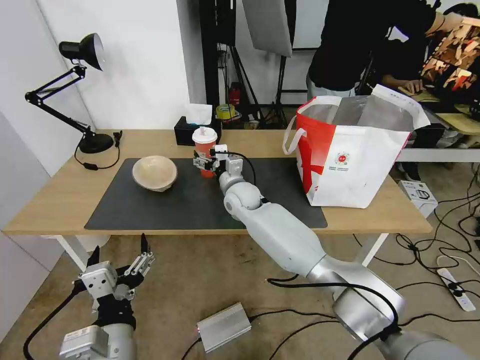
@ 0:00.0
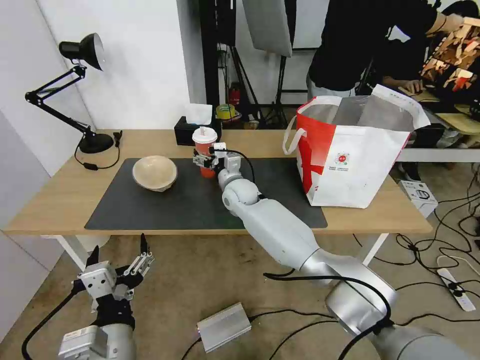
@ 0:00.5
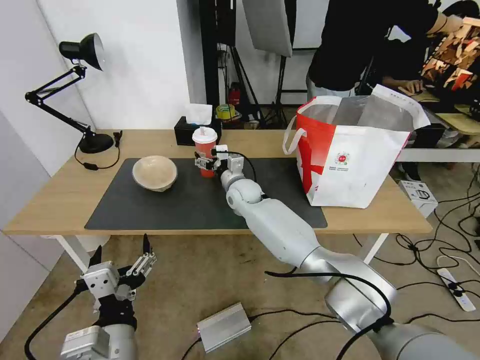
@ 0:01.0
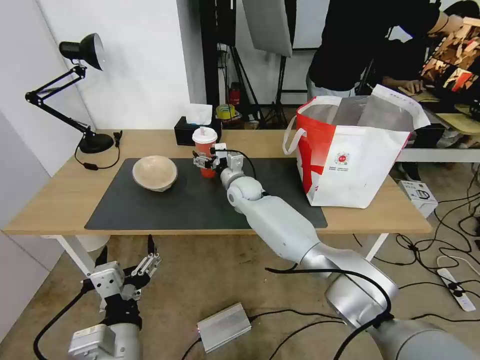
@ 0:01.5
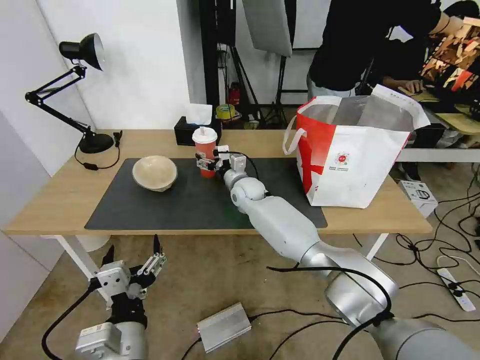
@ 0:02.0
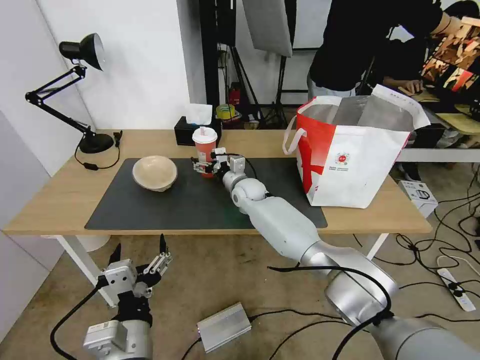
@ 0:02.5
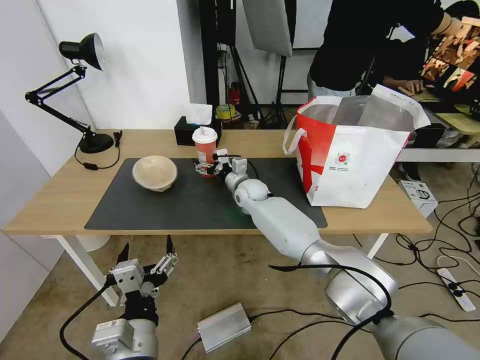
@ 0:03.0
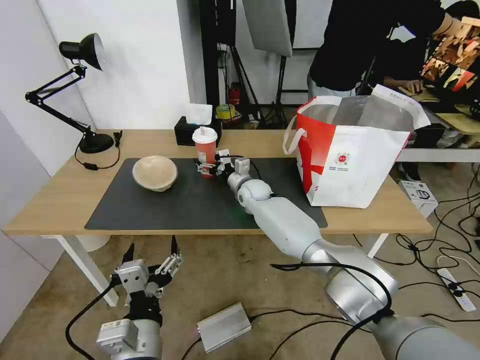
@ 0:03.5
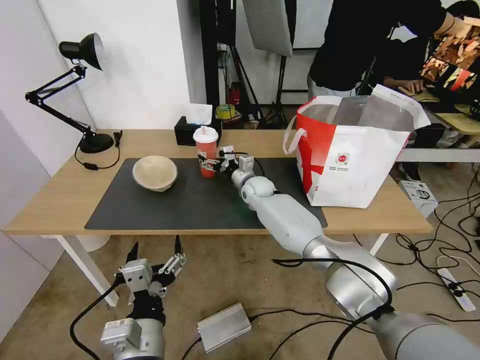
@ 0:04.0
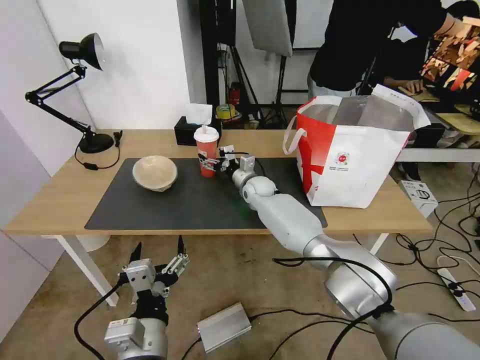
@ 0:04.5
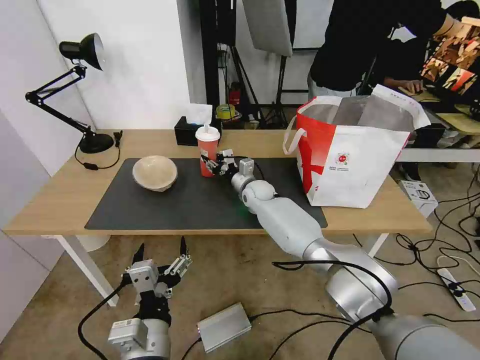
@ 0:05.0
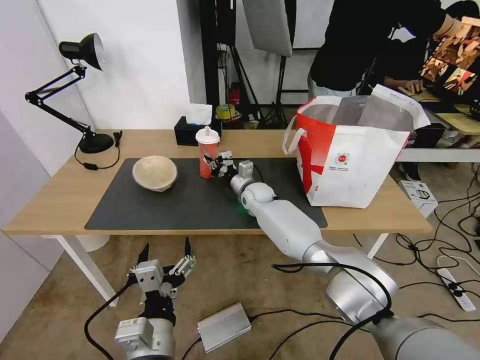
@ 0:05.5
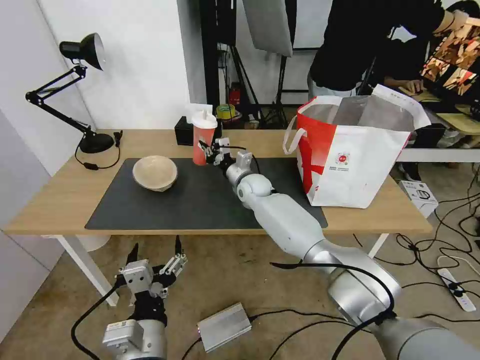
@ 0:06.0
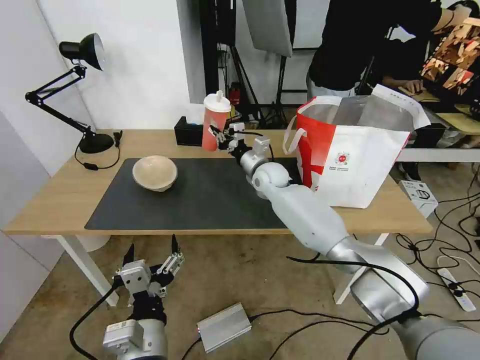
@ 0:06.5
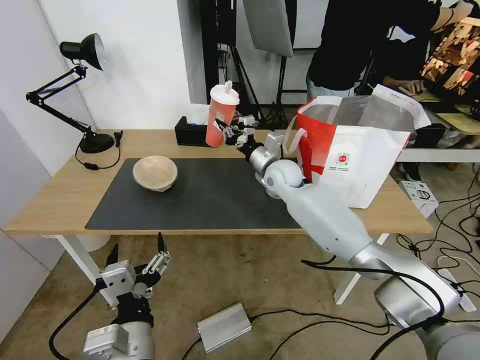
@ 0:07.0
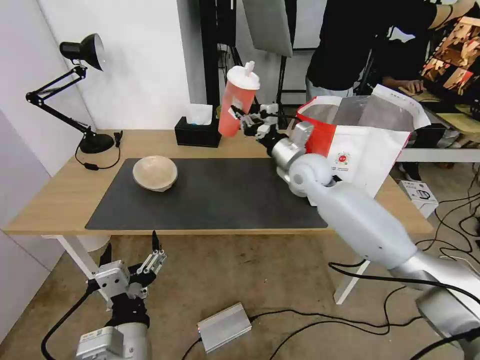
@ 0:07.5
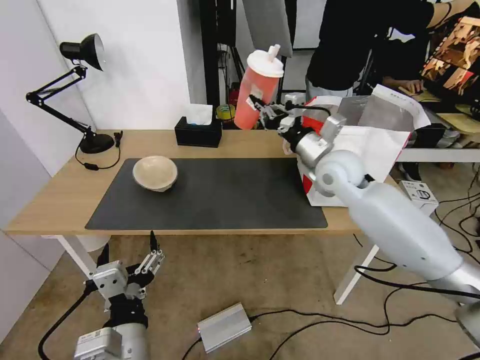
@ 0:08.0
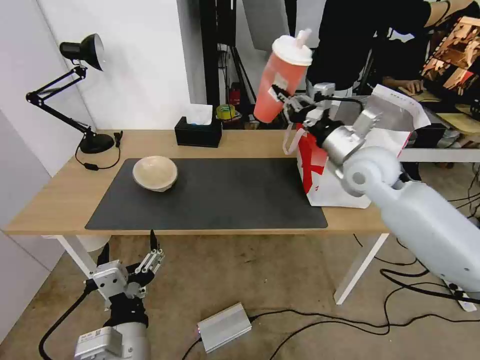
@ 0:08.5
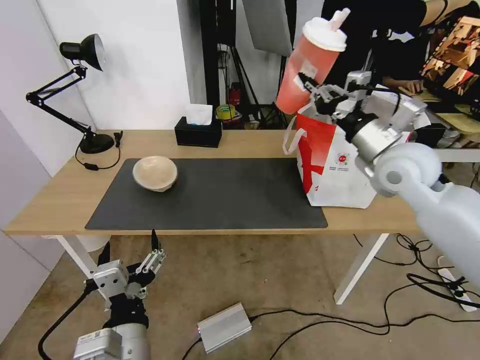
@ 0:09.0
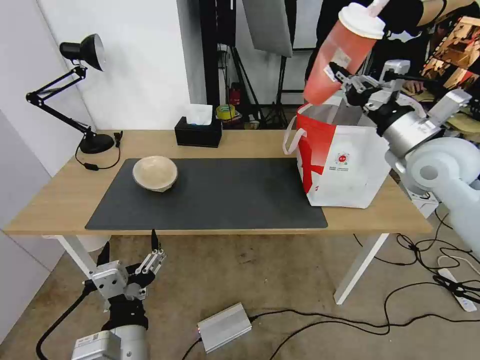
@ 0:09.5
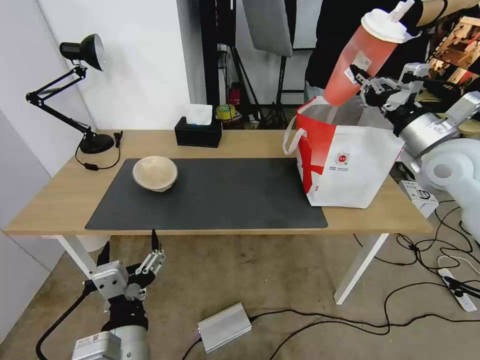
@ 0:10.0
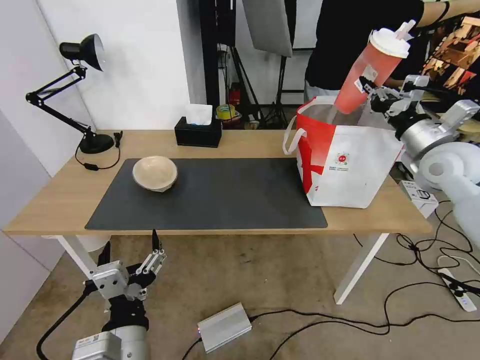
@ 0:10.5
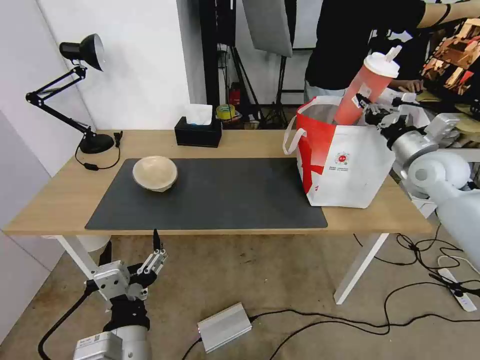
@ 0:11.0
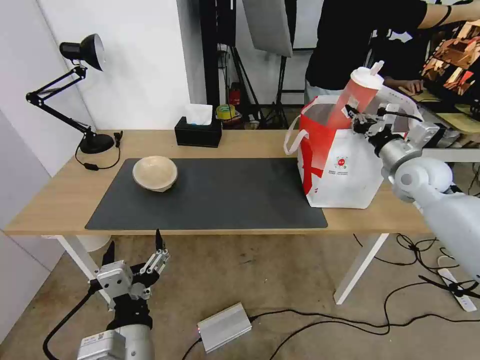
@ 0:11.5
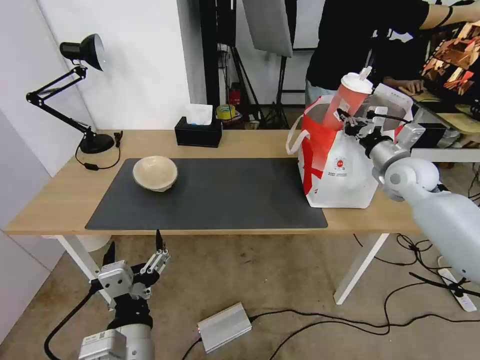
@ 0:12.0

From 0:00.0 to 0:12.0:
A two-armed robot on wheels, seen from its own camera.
Task of the whole recording: Pick up the trash from the table and place it into the takeout bag.
From 0:00.0 to 0:02.0: The right gripper shifts by approximately 5 cm.
From 0:02.0 to 0:04.0: There are only small adjustments of the grippers.
From 0:04.0 to 0:06.0: The right gripper closes its fingers.
From 0:06.0 to 0:08.0: The right gripper shifts approximately 25 cm to the right, upward and backward.
From 0:08.0 to 0:10.0: The right gripper shifts approximately 15 cm to the right.
From 0:10.0 to 0:12.0: The right gripper is displaced downward and forward by approximately 10 cm.

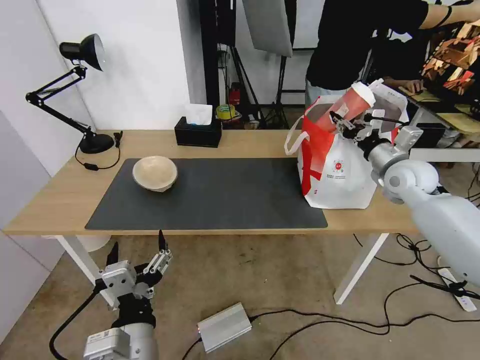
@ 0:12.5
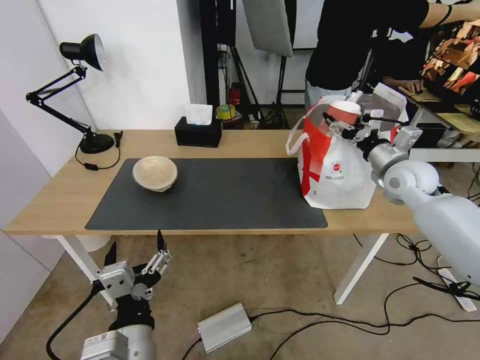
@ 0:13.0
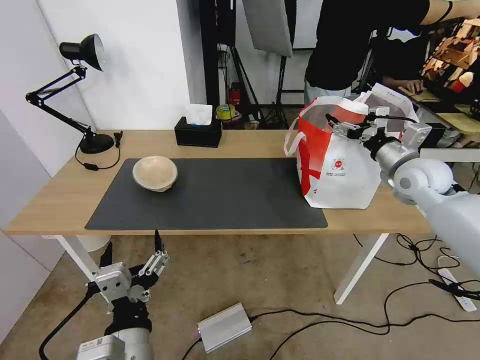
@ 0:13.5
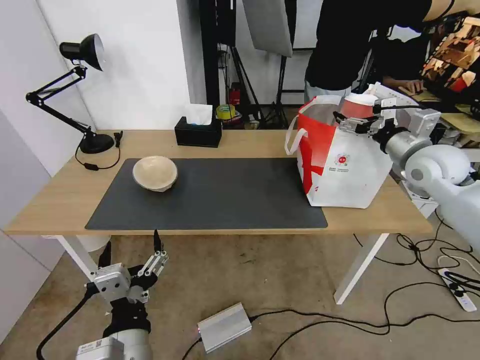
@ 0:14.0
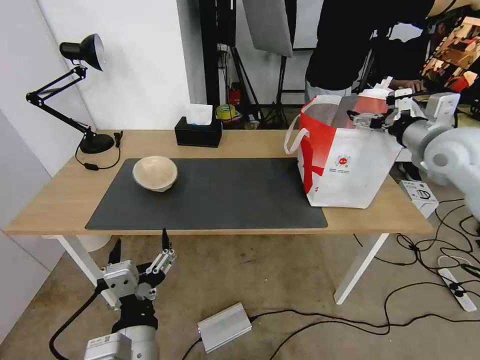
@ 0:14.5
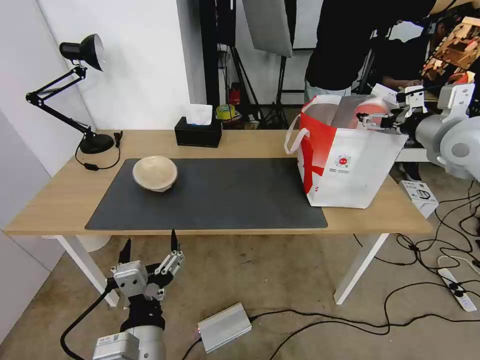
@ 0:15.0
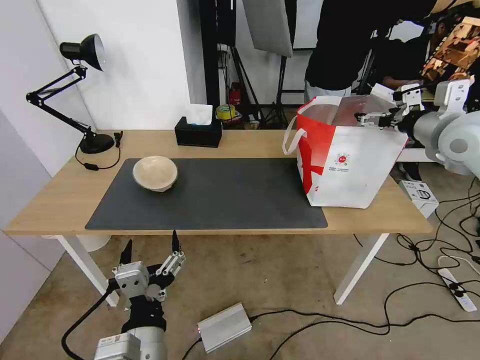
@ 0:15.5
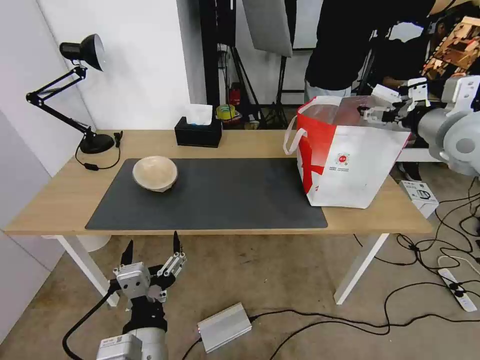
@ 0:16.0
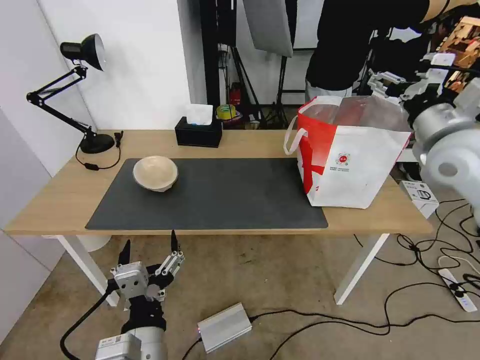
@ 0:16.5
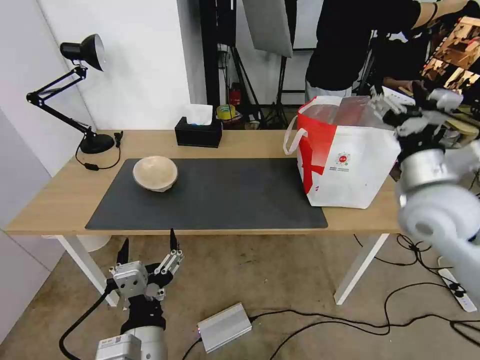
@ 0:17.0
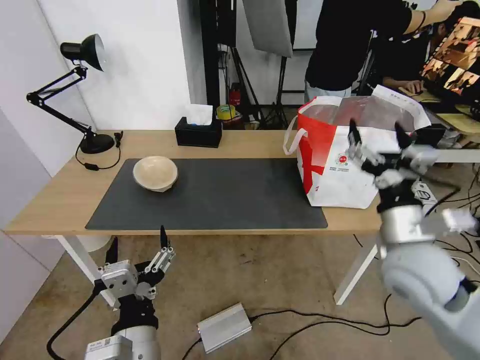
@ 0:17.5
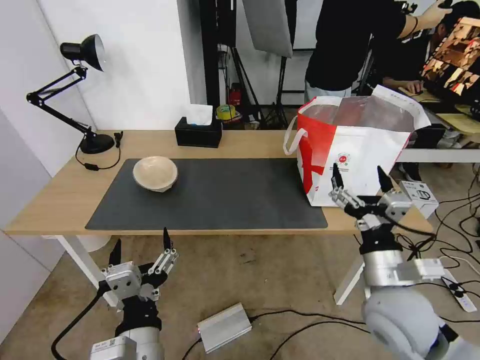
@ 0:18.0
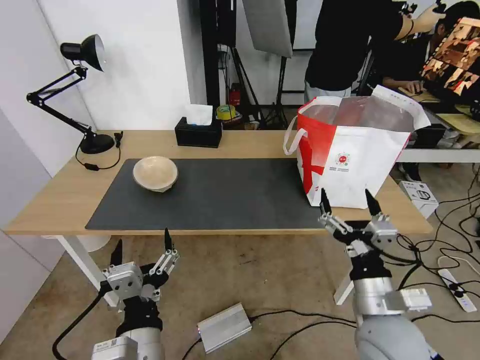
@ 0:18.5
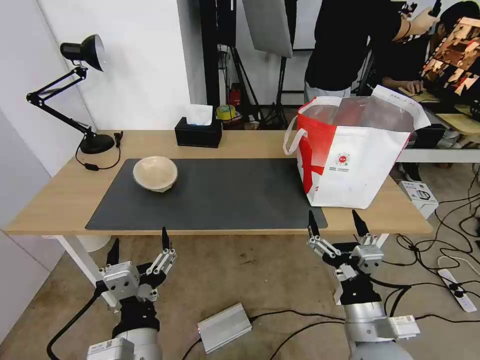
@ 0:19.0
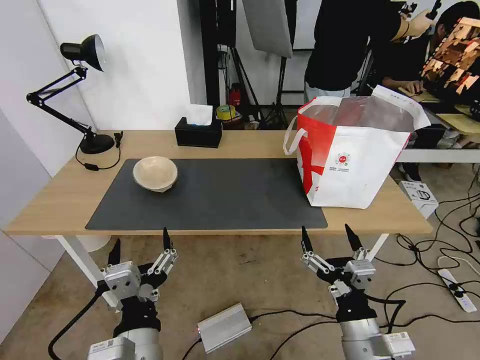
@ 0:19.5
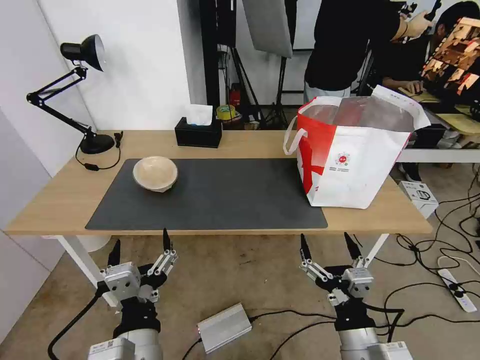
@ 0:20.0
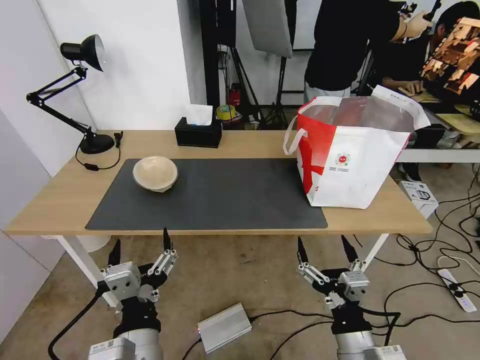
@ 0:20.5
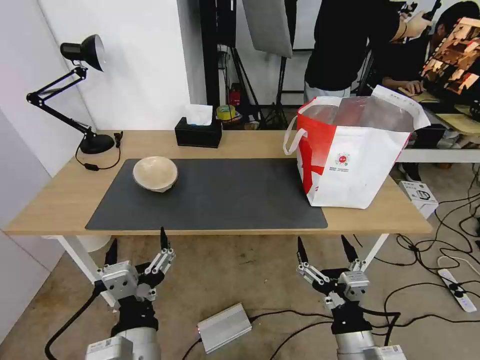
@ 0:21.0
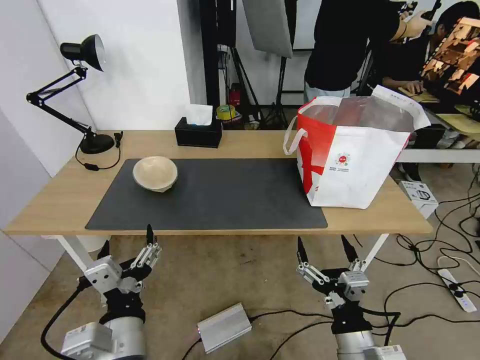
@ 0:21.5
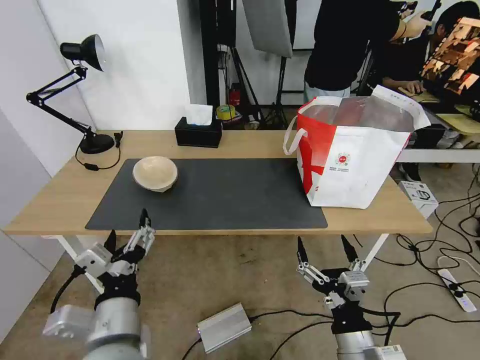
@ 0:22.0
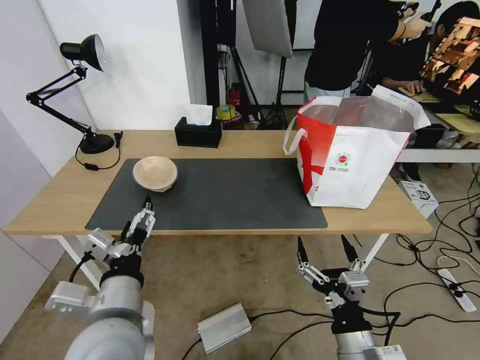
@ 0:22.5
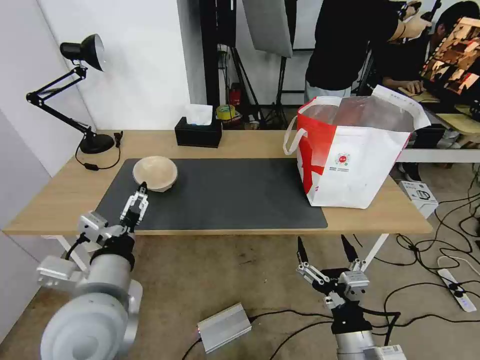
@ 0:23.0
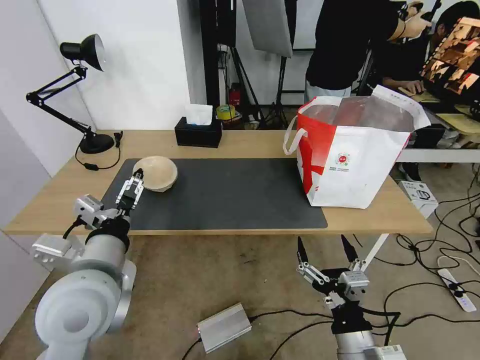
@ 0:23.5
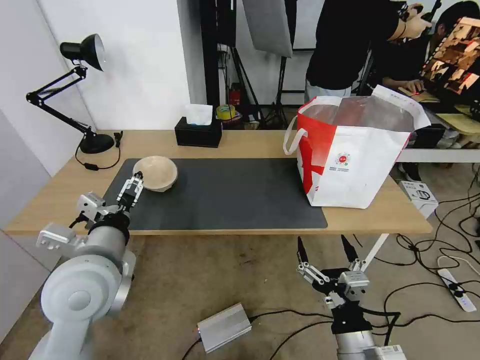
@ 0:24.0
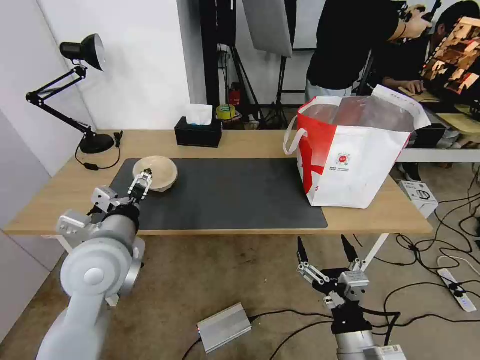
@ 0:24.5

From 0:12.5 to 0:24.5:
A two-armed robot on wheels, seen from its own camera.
Task of the whole recording: Pick up the trash from the table and place it into the takeout bag.
From 0:12.5 to 0:14.5: The right gripper is displaced upward by roughly 10 cm, and opens its fingers.
From 0:14.5 to 0:16.5: The right gripper moves some 5 cm.
From 0:16.5 to 0:18.5: The right gripper moves downward, backward and to the left, approximately 35 cm.
From 0:18.5 to 0:20.5: The right gripper heads backward, covering approximately 10 cm.
From 0:20.5 to 0:22.5: The left gripper moves forward, roughly 5 cm.
From 0:22.5 to 0:24.5: The left gripper heads forward, covering some 10 cm.

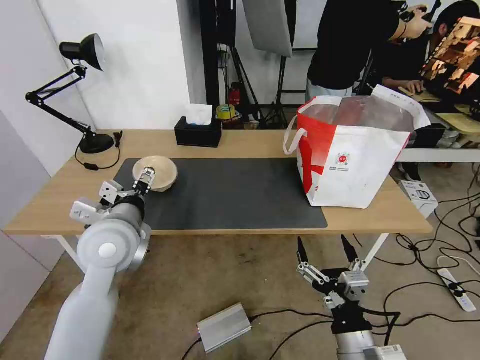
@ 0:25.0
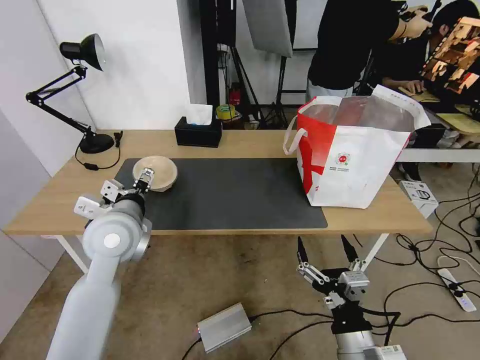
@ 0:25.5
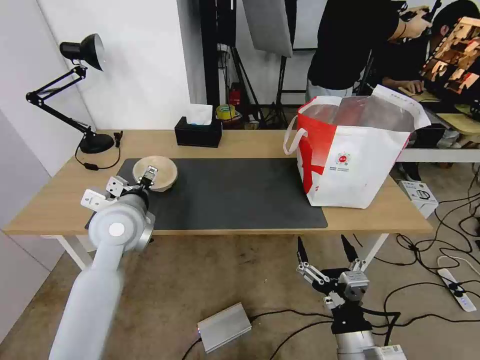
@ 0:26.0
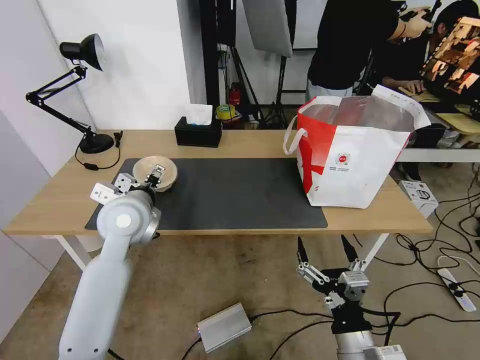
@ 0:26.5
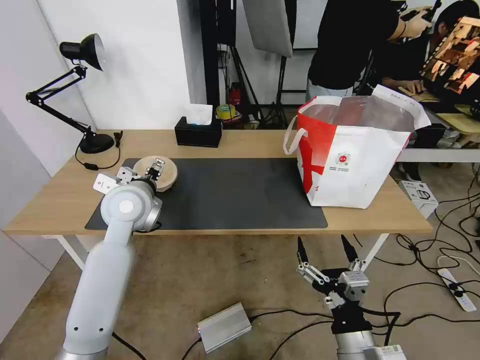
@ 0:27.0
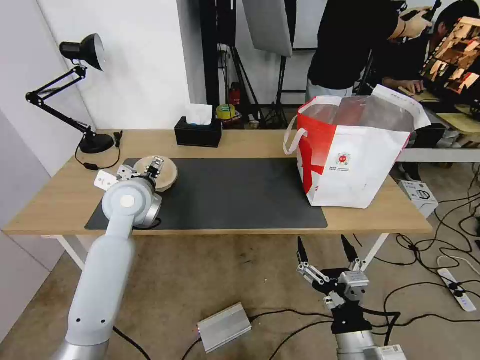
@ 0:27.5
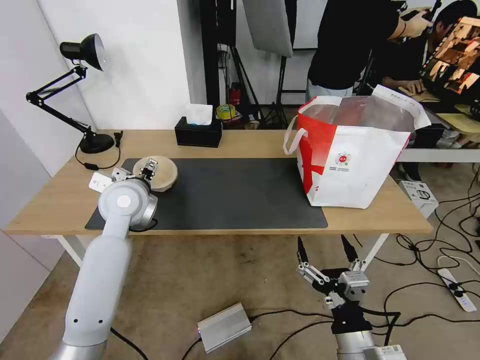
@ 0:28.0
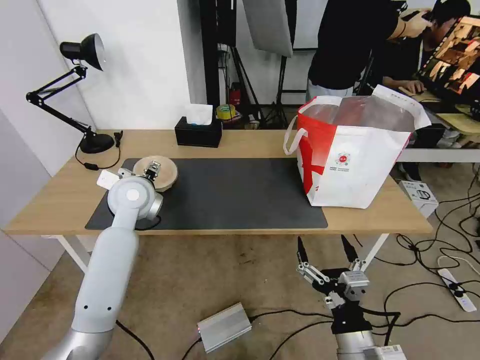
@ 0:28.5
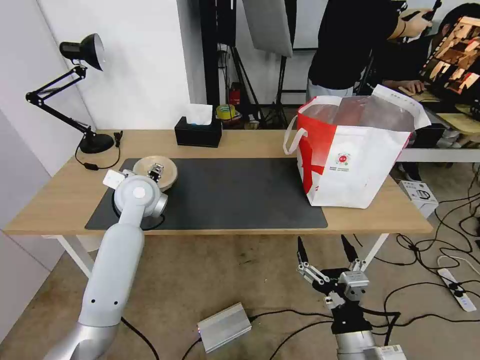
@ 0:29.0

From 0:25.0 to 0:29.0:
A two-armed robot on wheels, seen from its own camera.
Task of the whole recording: Pick up the trash from the table and place it into the takeout bag.
From 0:25.0 to 0:27.0: The left gripper is displaced forward by approximately 10 cm.
From 0:27.0 to 0:29.0: The left gripper changes place by some 5 cm.
